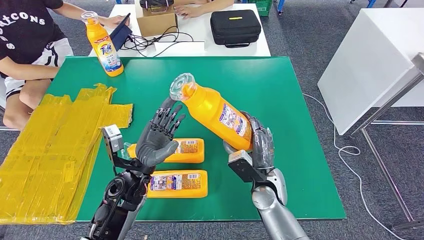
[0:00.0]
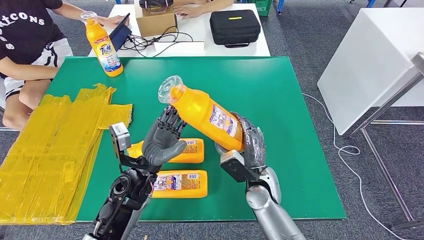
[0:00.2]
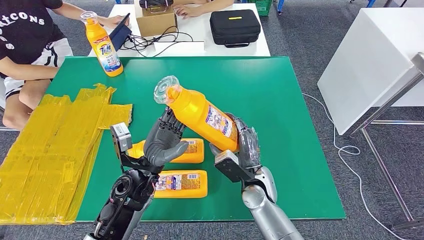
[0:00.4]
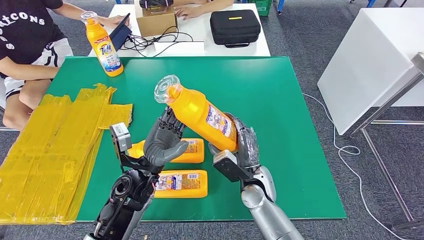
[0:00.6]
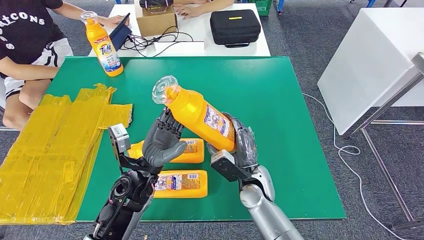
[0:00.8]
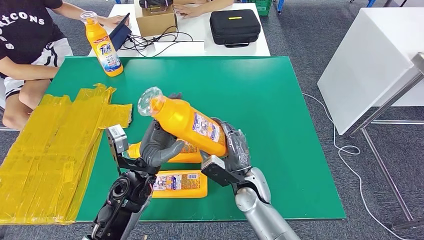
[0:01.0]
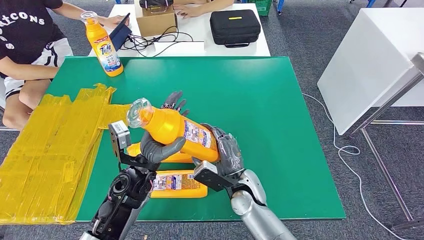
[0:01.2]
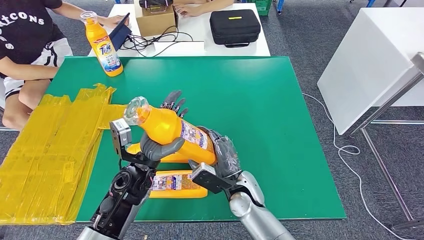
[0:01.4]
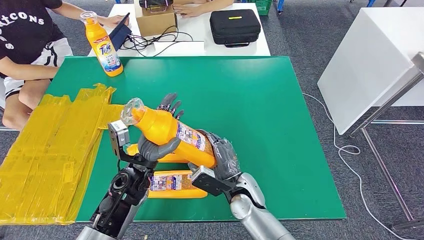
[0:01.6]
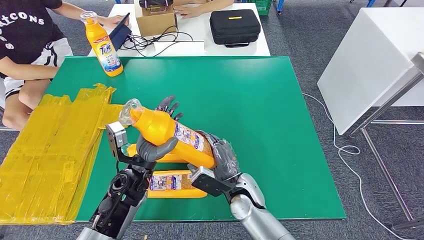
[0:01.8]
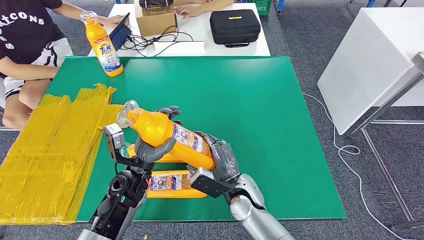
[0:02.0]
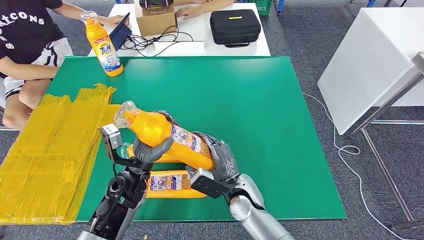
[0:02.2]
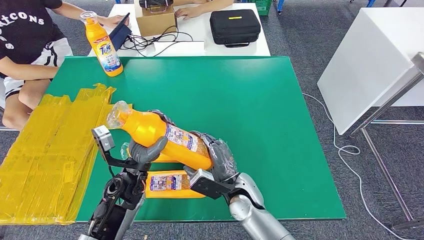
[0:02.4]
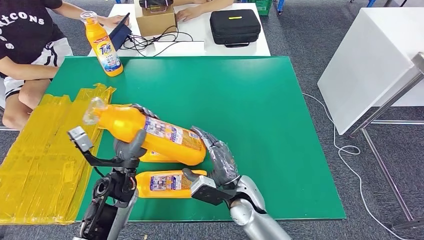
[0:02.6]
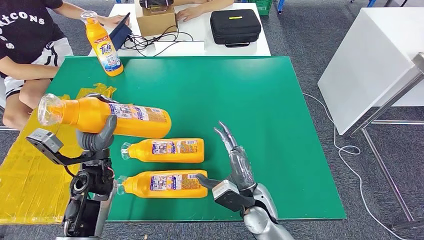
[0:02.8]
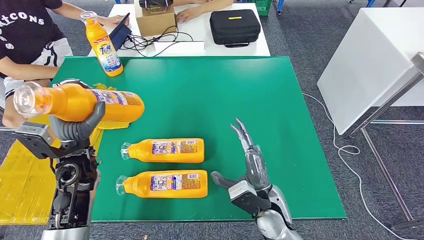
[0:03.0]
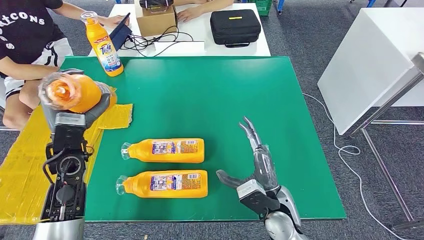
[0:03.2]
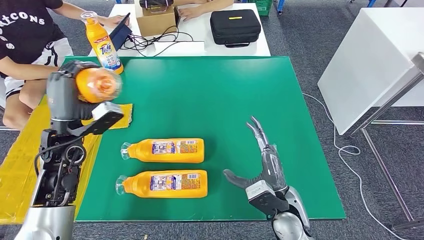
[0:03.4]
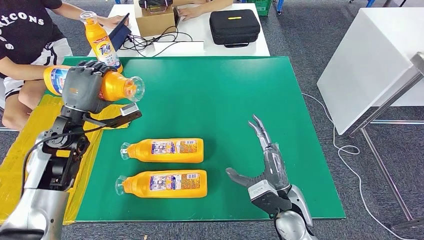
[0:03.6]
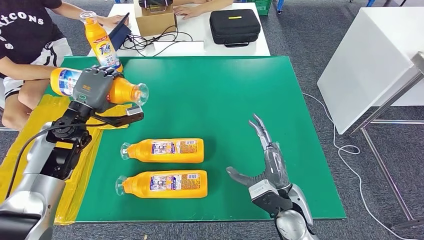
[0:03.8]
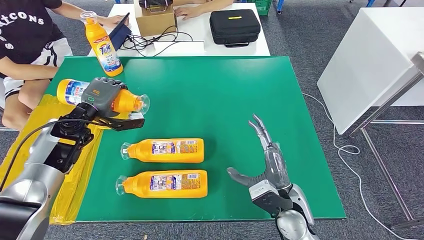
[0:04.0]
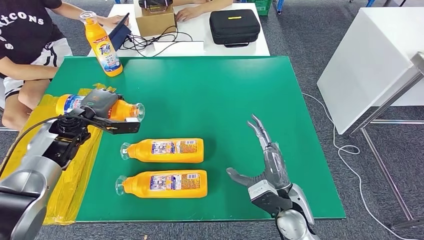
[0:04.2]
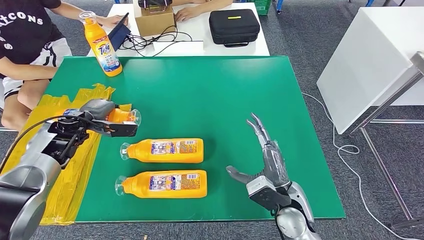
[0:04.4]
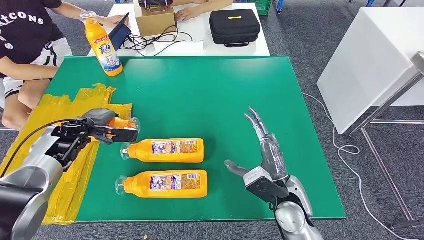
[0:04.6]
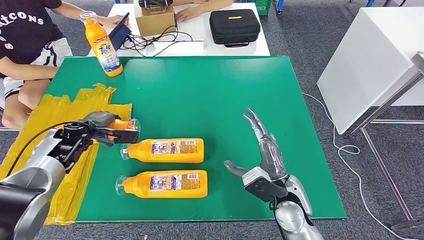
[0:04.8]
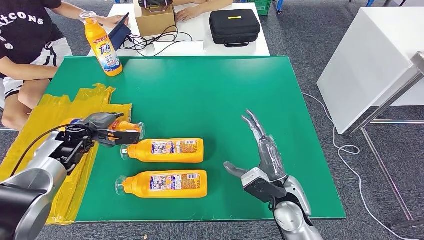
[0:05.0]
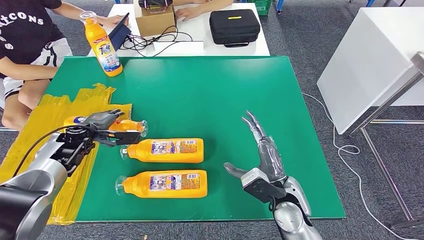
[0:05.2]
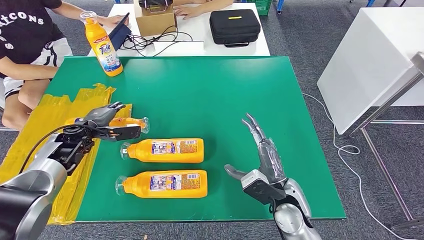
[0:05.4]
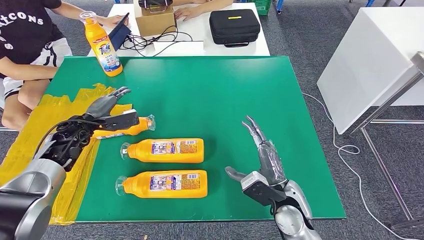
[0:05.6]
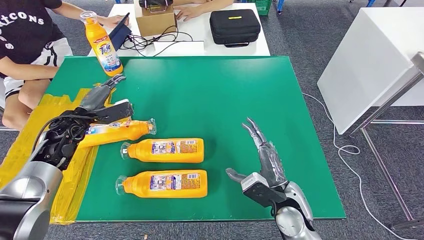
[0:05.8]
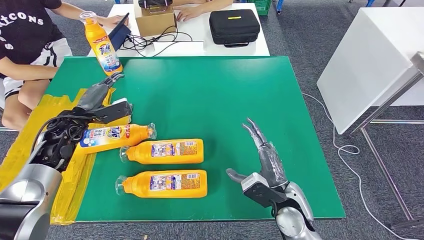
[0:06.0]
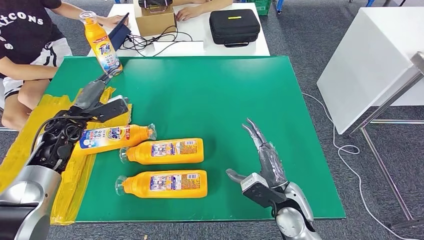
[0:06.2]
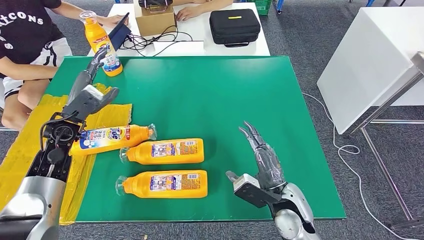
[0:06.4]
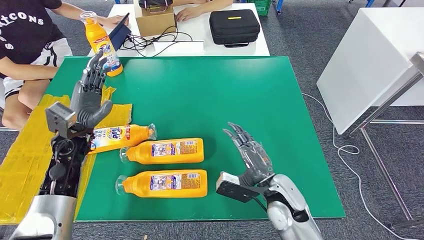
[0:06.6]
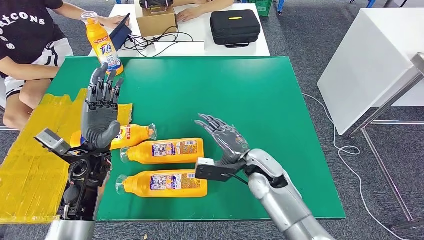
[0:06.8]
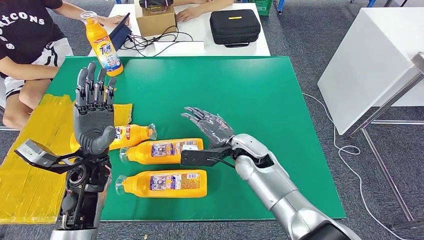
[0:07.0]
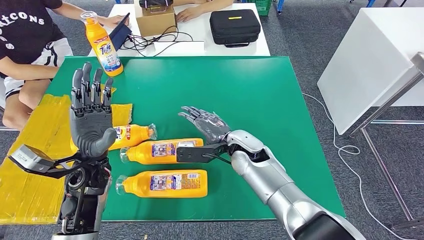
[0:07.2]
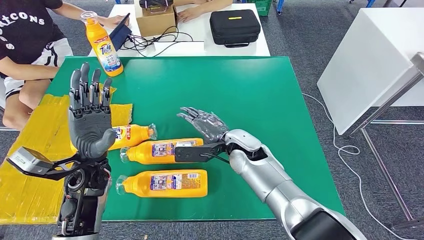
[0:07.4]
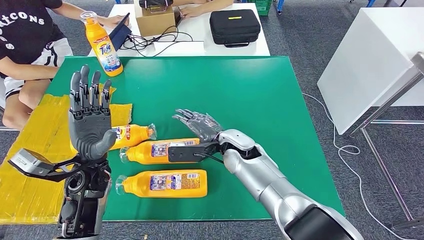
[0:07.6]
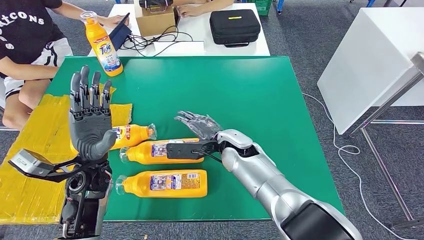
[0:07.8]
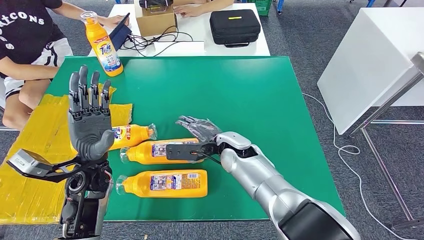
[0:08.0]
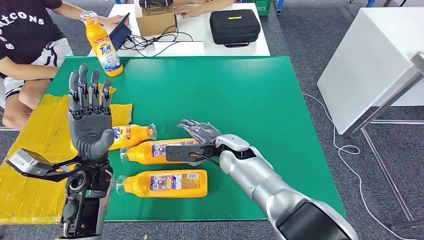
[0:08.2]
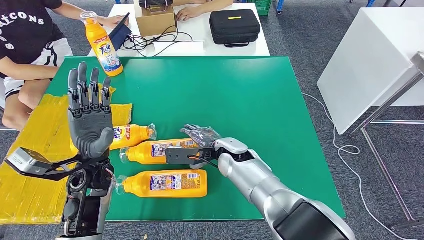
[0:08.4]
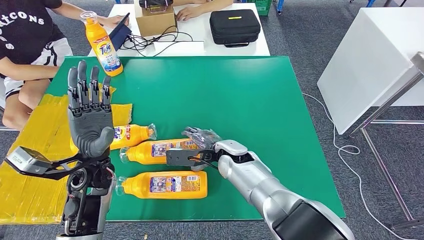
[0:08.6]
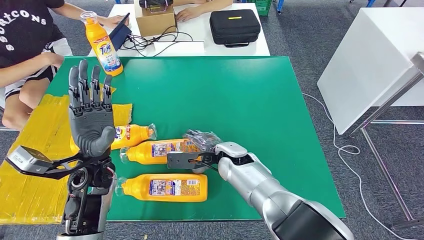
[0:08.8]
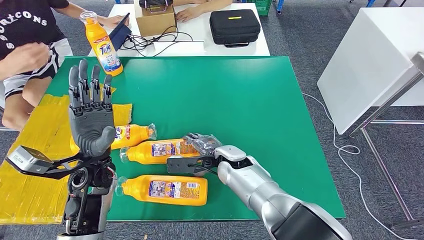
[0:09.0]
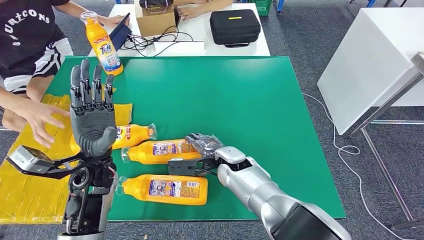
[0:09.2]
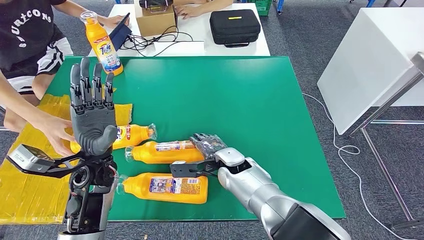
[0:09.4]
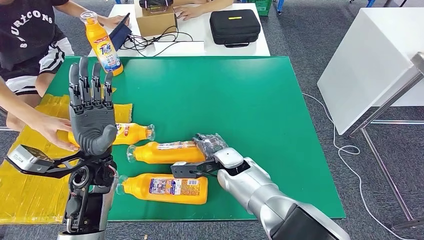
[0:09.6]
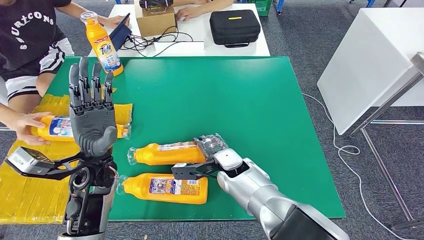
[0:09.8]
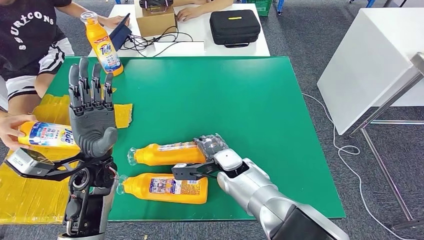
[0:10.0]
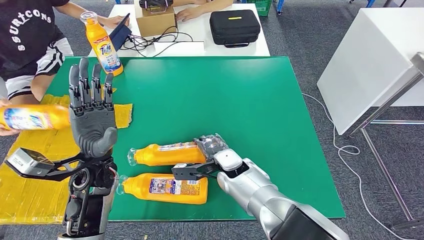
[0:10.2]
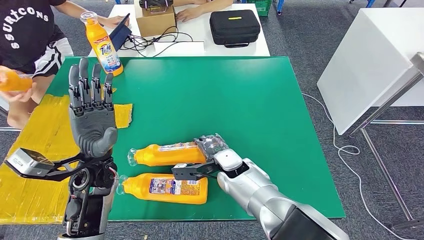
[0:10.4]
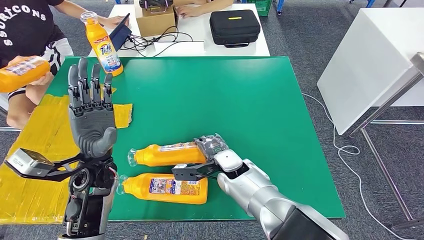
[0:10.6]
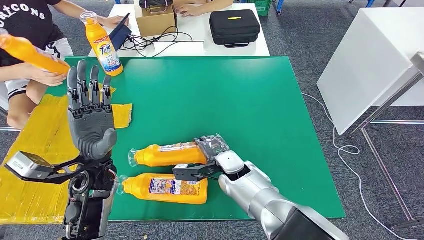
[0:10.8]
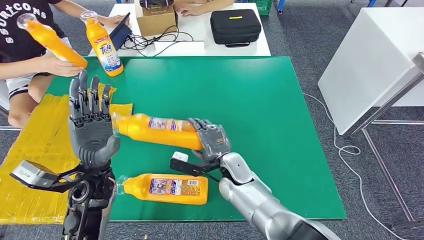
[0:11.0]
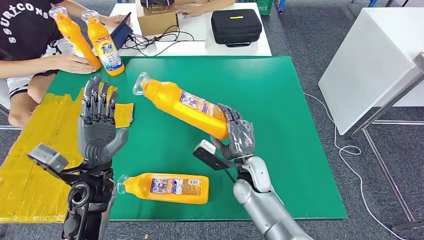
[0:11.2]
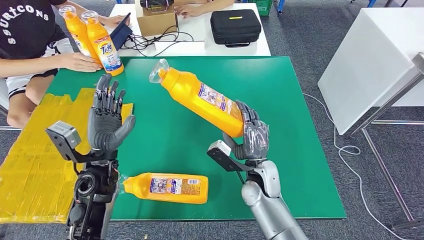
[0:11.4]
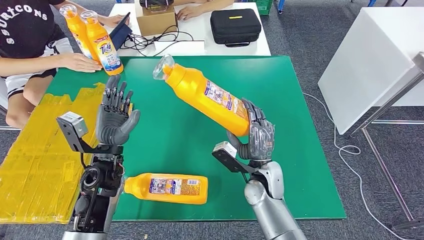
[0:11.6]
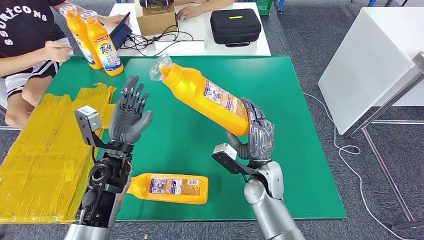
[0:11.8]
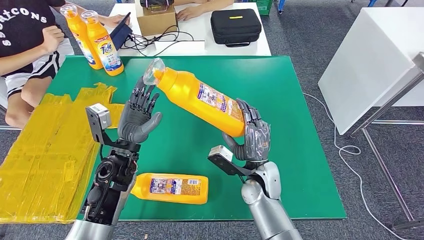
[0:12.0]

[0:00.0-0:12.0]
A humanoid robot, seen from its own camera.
Step, 0:00.0 to 0:02.6: Pick up the bottle from the table.
Step, 0:02.8 to 0:09.4: Flip the bottle to face forward.
0:00.0 to 0:01.6: The right hand goes about 5 cm to the left.
0:01.6 to 0:03.0: The left hand heads to the left and upward, covering roughly 15 cm. The right hand is displaced to the right by roughly 5 cm.
0:03.0 to 0:04.4: The left hand goes some 15 cm forward and to the left.
0:07.6 to 0:09.0: The right hand changes place by some 5 cm.

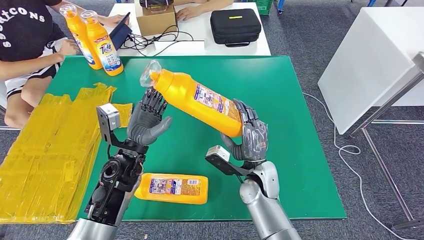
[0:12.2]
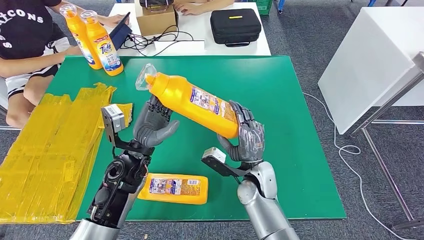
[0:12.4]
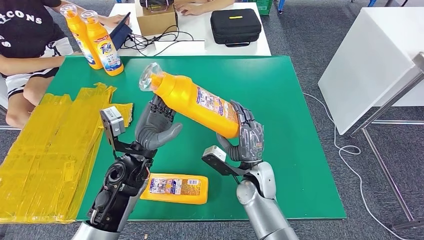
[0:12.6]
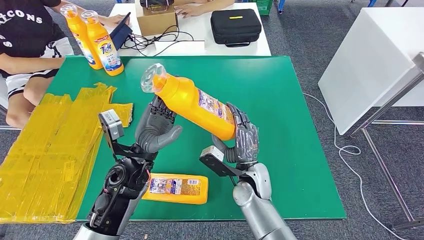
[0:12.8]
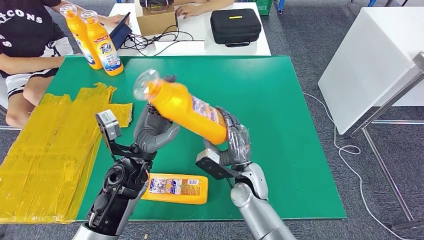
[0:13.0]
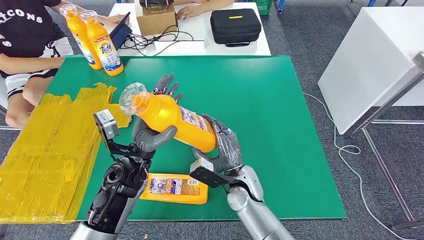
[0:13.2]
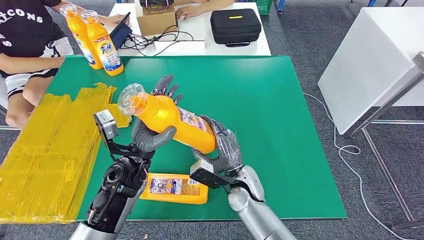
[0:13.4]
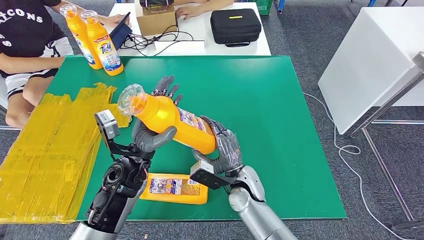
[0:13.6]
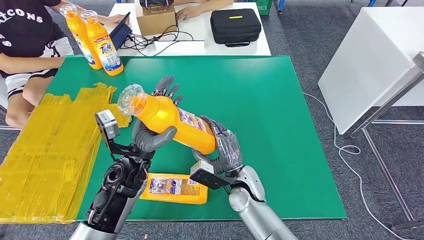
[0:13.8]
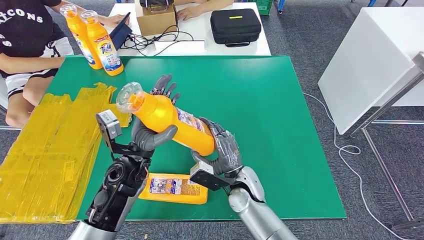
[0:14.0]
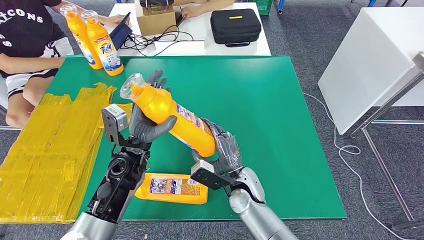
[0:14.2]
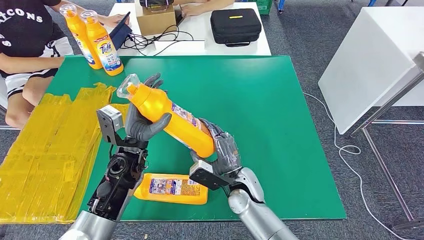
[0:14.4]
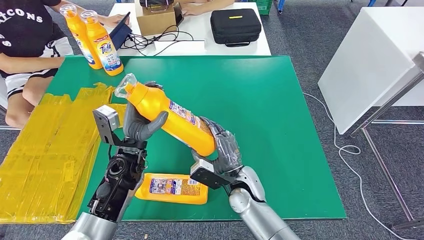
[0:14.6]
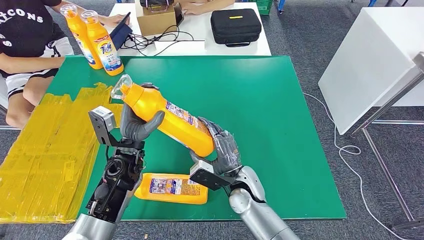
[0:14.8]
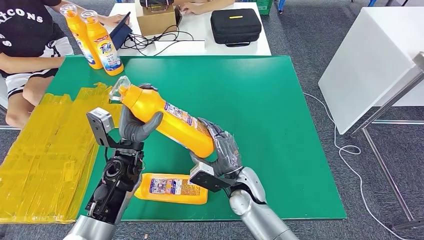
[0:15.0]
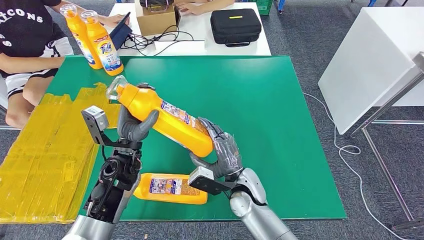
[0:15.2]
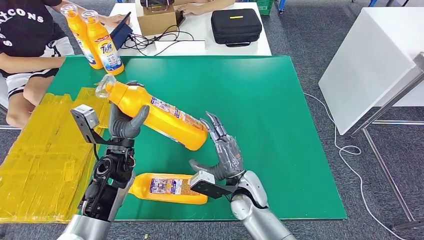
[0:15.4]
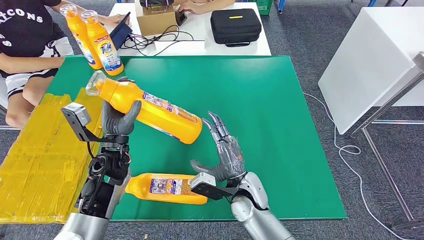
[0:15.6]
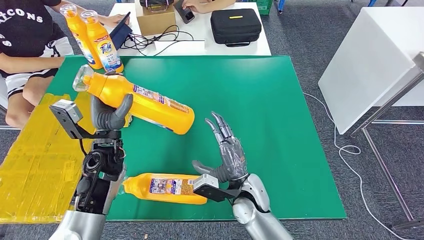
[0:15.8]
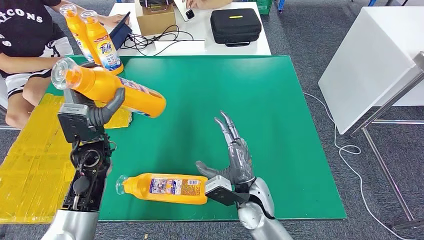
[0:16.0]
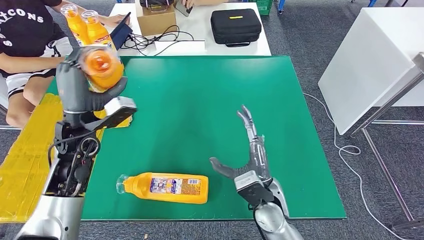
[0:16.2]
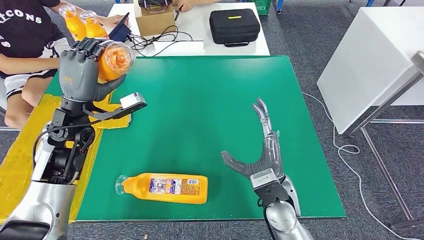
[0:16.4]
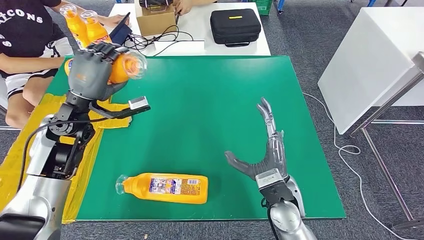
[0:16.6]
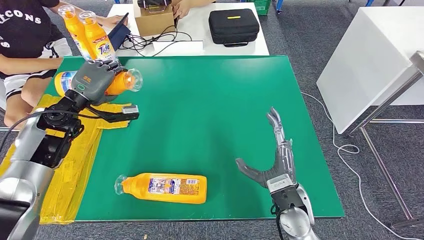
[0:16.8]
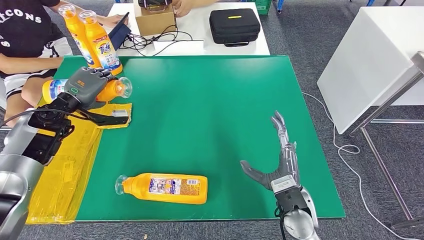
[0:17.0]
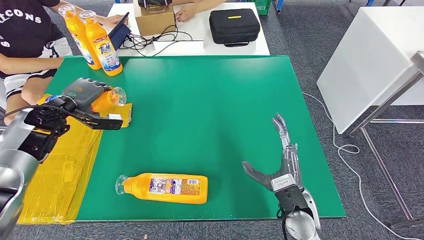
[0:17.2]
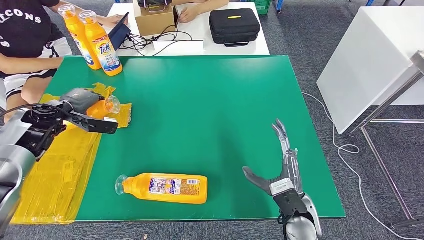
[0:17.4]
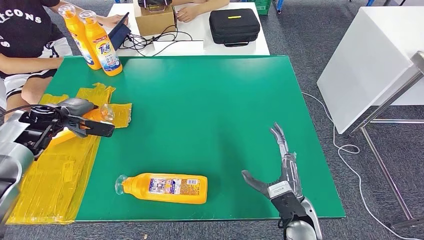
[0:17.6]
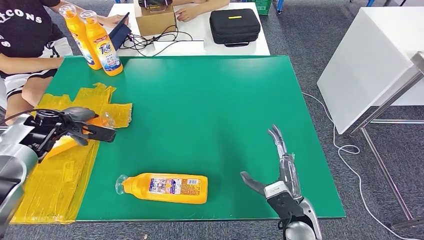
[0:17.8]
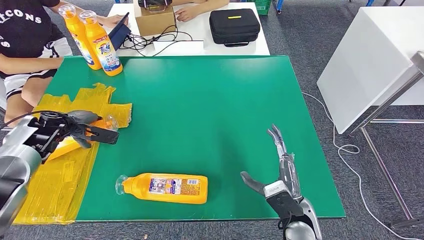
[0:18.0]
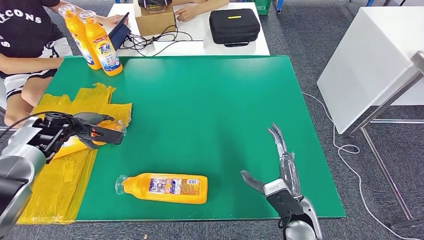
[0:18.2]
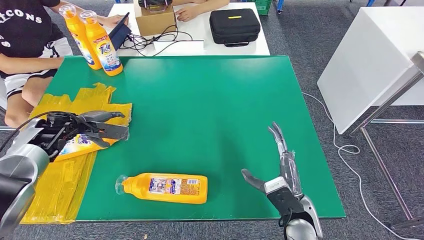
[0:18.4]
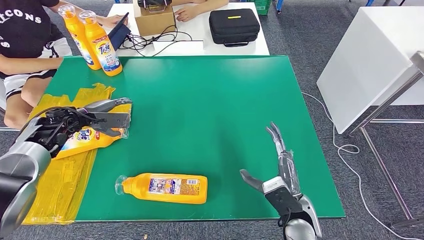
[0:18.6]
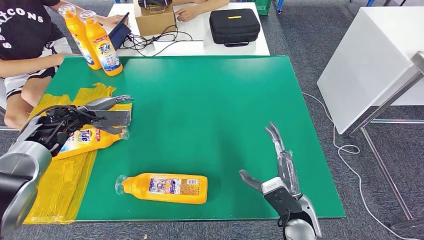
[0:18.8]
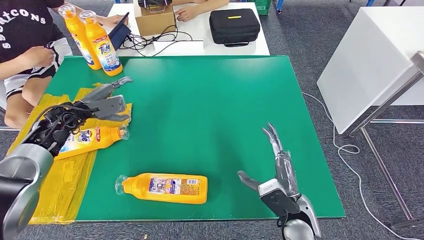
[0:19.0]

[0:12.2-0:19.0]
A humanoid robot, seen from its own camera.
Step, 0:12.2 to 0:15.0: Pick up the bottle from the table.
0:12.2 to 0:13.6: The right hand moves some 5 cm.
